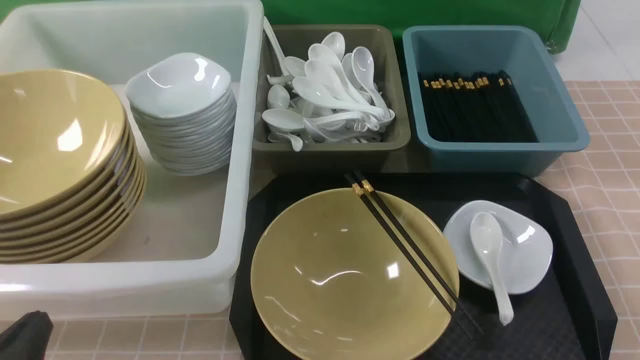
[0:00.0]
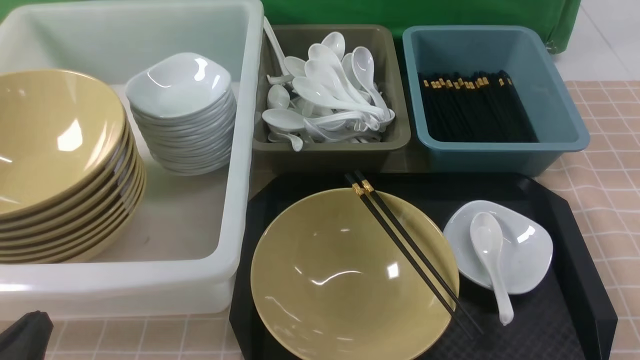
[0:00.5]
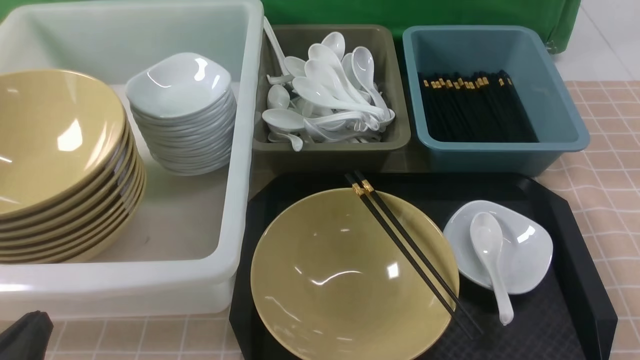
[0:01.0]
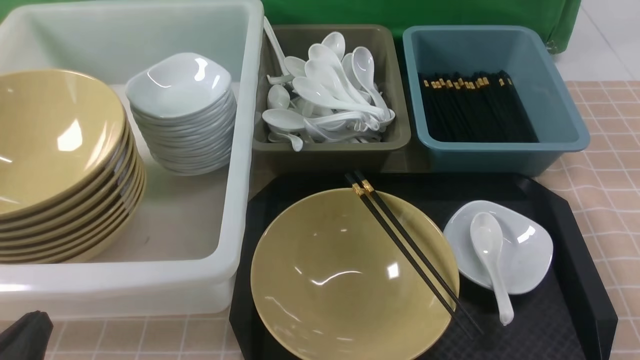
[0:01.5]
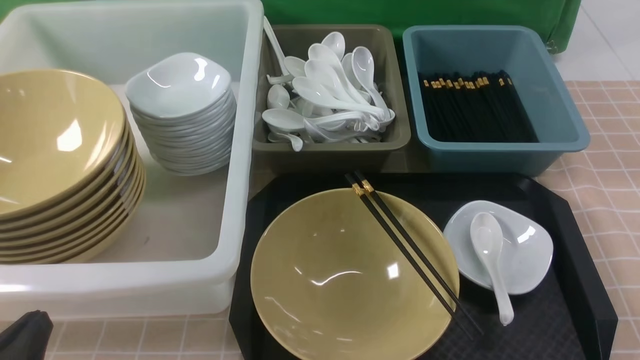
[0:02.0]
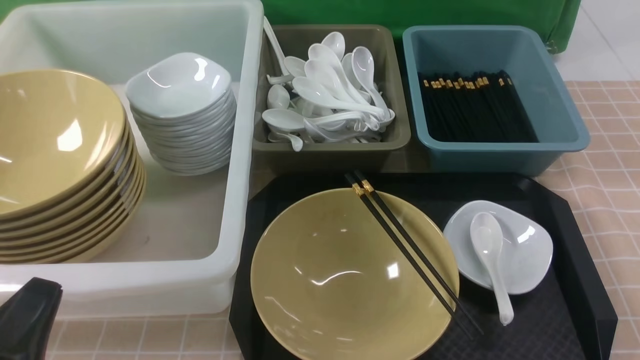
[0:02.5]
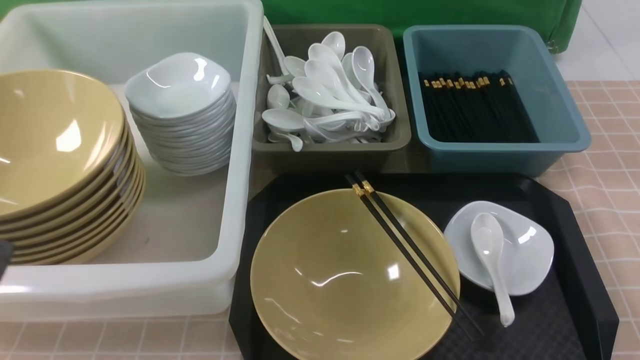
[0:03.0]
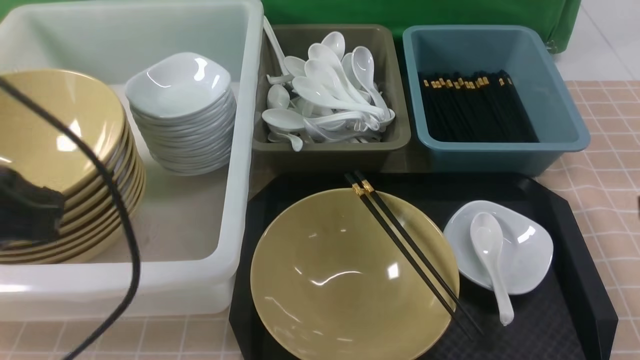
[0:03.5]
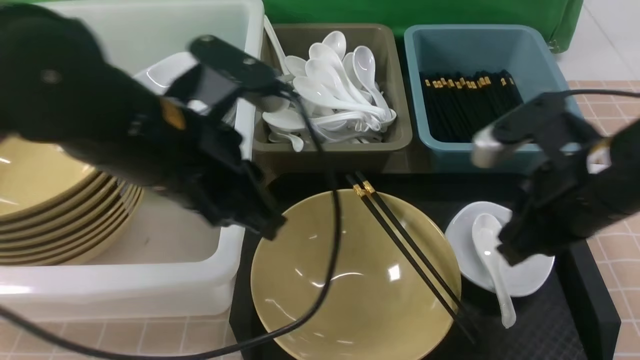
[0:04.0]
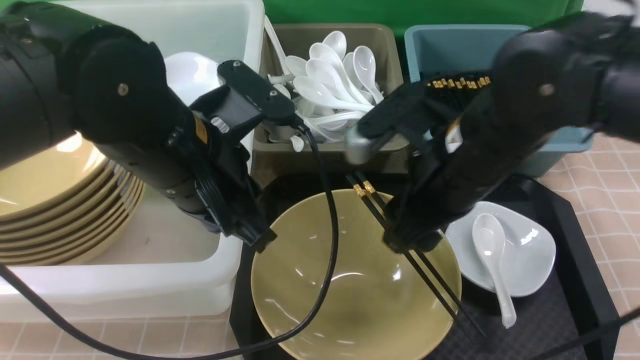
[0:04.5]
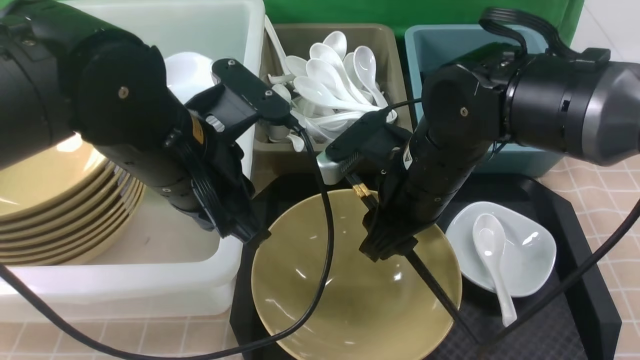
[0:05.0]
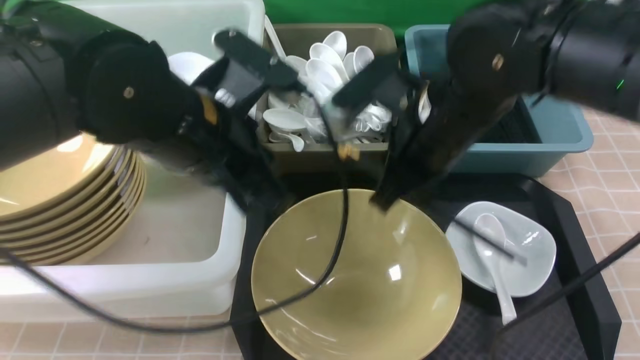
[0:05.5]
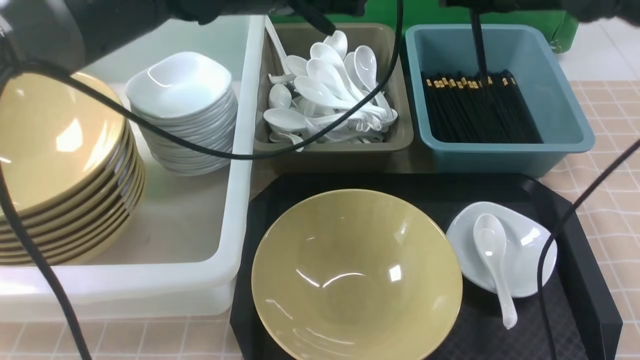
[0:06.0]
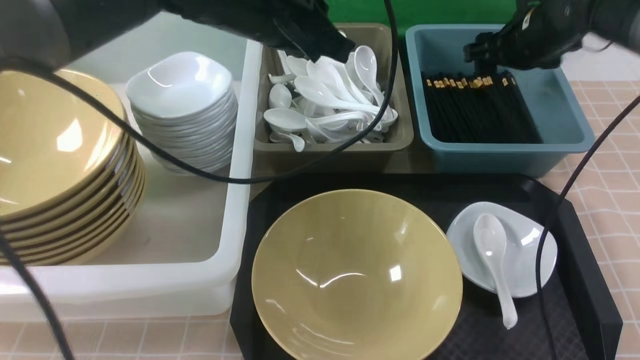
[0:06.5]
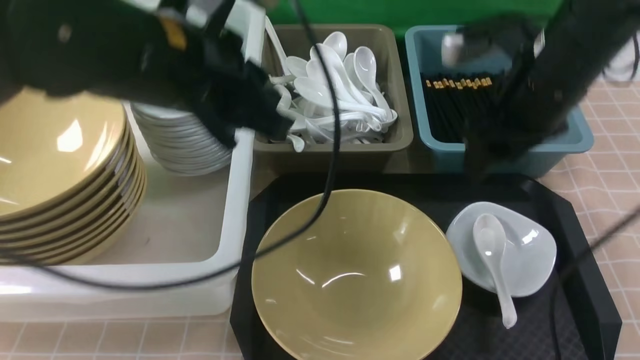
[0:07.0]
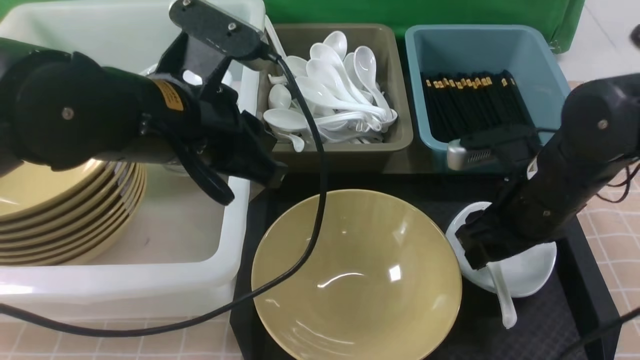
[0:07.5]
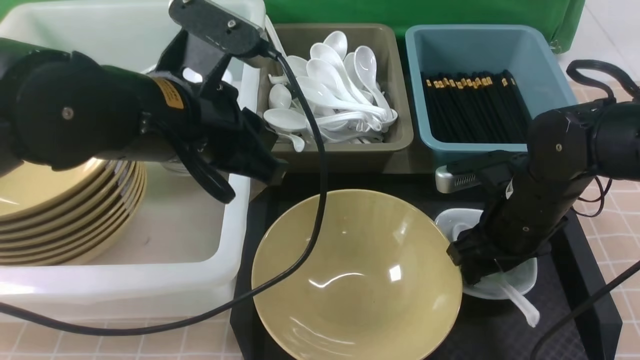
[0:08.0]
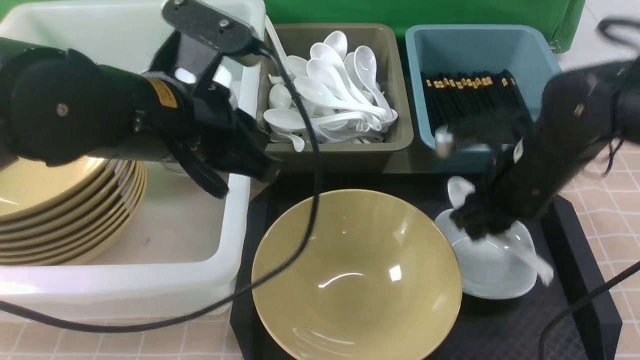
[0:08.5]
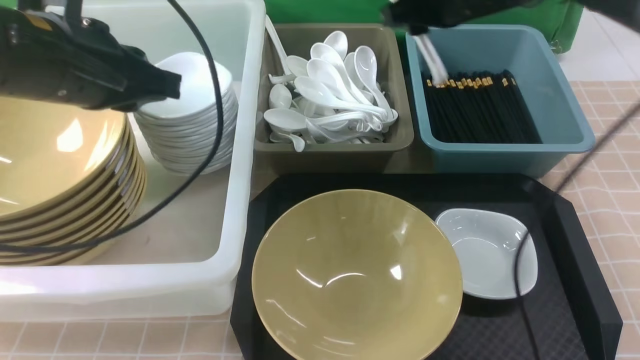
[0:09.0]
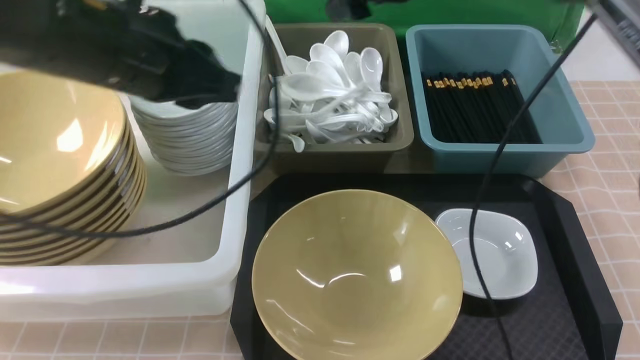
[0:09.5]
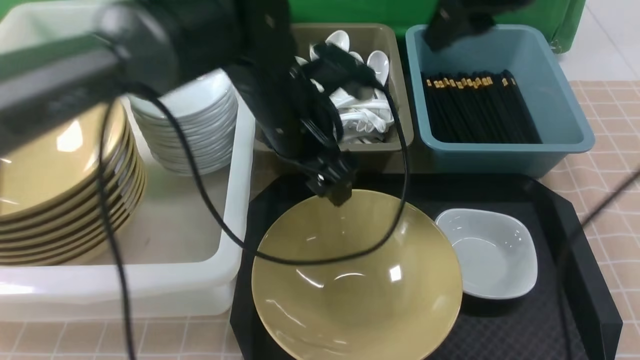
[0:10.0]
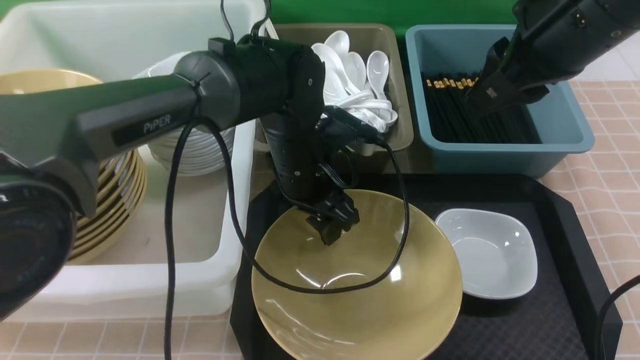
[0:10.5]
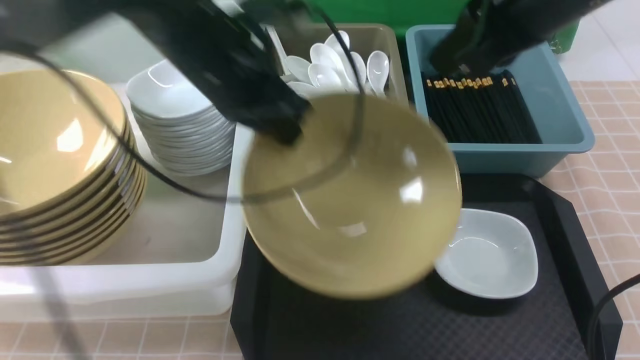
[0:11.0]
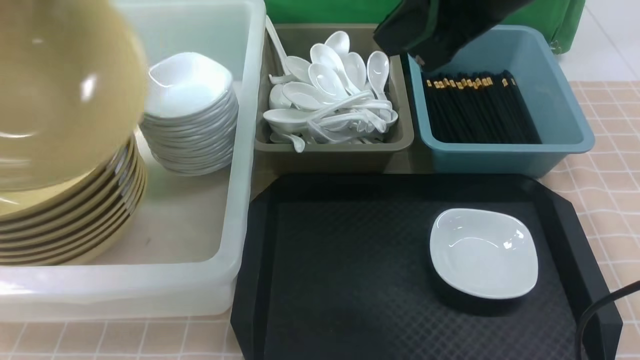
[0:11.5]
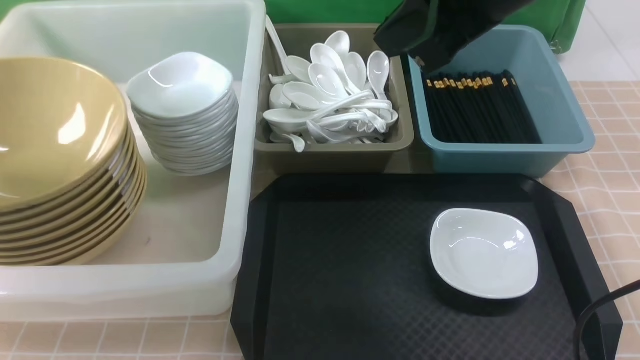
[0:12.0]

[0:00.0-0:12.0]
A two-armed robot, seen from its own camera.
Task of the whole recording: on brown table put chopsticks spoon bowls plates into blue grey white boxes.
Step, 0:00.0 to 0:05.0: use the right arm to grab the chopsticks.
Step, 0:05.5 to 0:06.5: use the right arm to put the chopsticks into the small storage box on the right.
Step, 0:07.0 to 0:08.0: use the right arm to grab the soup spoon in the middle.
Step, 0:08.5 to 0:09.0: use the right arm to put the soup spoon into the small storage box in the middle.
Step, 0:09.5 to 0:10.5: use the left arm to grab the yellow noodle bowl on the left.
0:02.0 to 0:04.0: The right gripper shifts approximately 25 cm forward, to the left and upward; the left gripper shifts approximately 25 cm forward, upward and to the right.
0:04.0 to 0:06.0: The left gripper is displaced forward and to the right by some 15 cm, while the right gripper goes roughly 20 cm forward, and opens, then closes again.
0:06.0 to 0:08.0: The left gripper is displaced backward and to the left by some 10 cm; the right gripper is displaced backward and downward by about 20 cm, and opens up.
0:08.0 to 0:10.0: The left gripper shifts some 15 cm forward, to the right and downward, and opens. The right gripper moves upward, some 25 cm.
0:10.0 to 0:12.0: The right gripper is displaced backward by roughly 5 cm, and closes its fingers. The left gripper goes about 35 cm to the left, and closes its fingers.

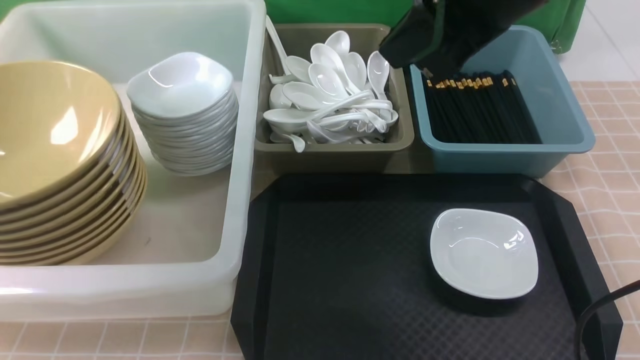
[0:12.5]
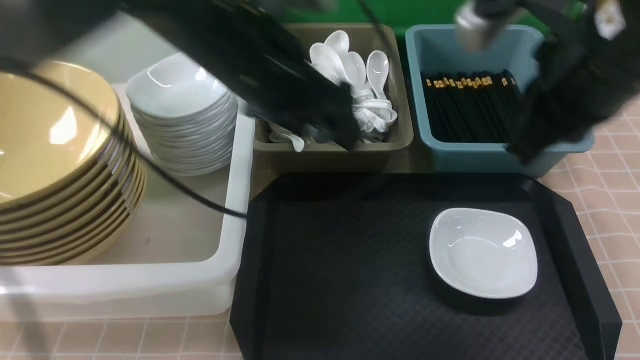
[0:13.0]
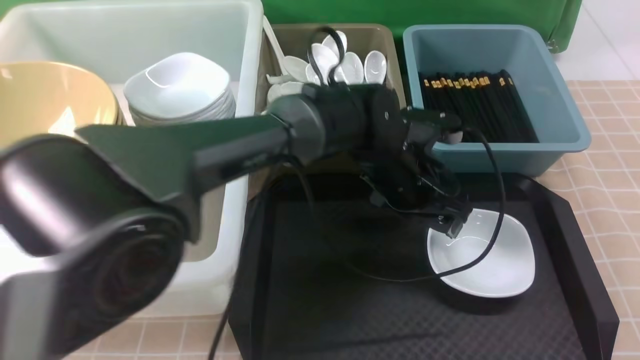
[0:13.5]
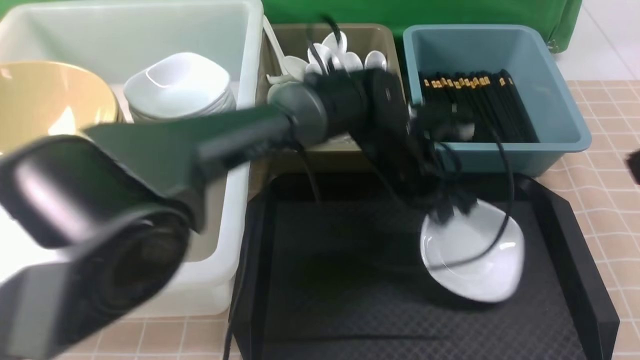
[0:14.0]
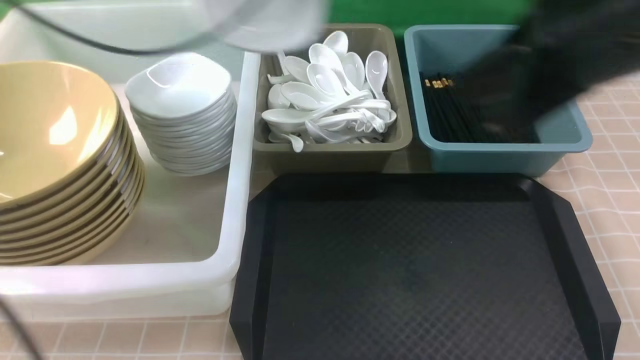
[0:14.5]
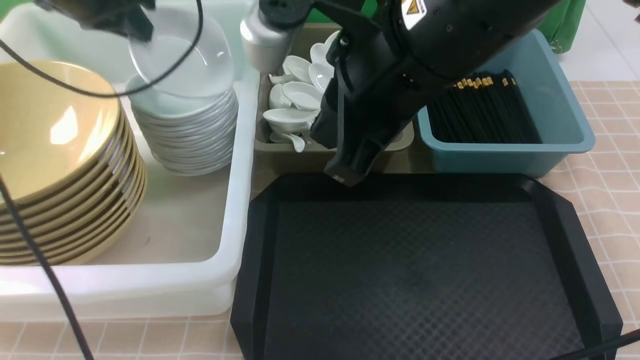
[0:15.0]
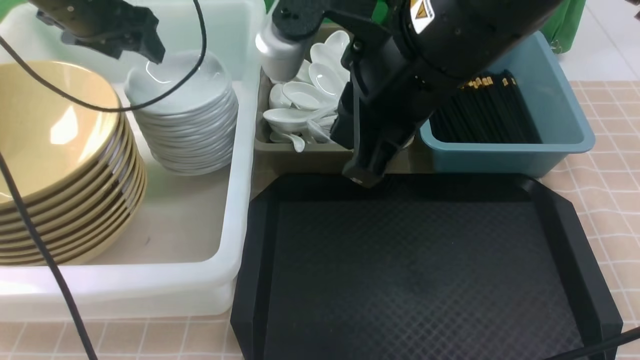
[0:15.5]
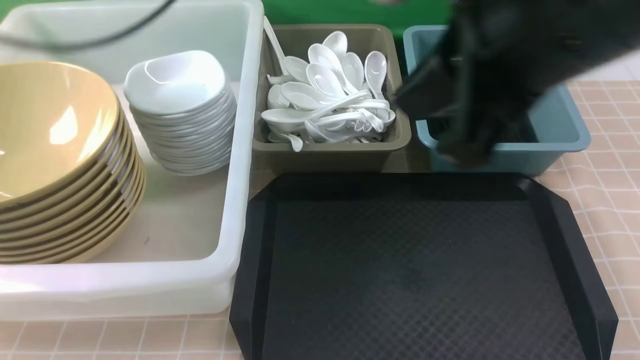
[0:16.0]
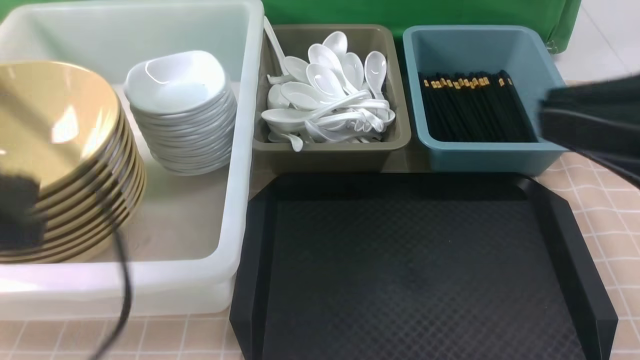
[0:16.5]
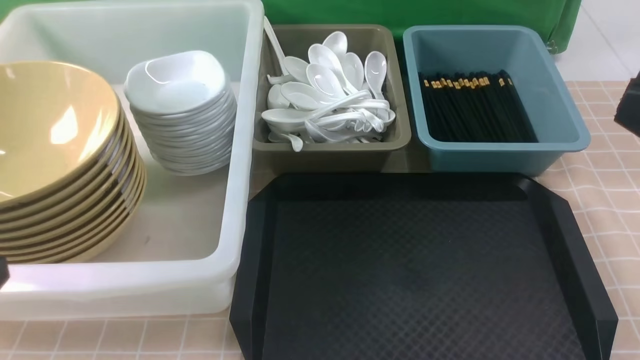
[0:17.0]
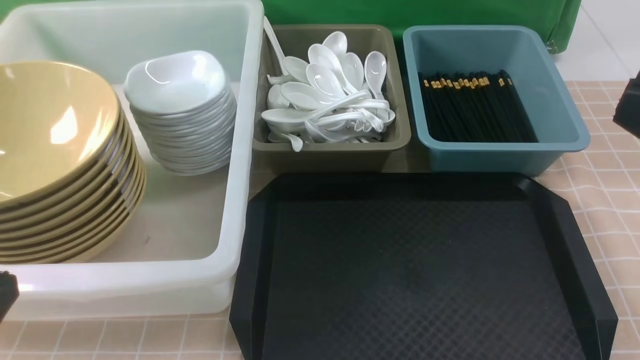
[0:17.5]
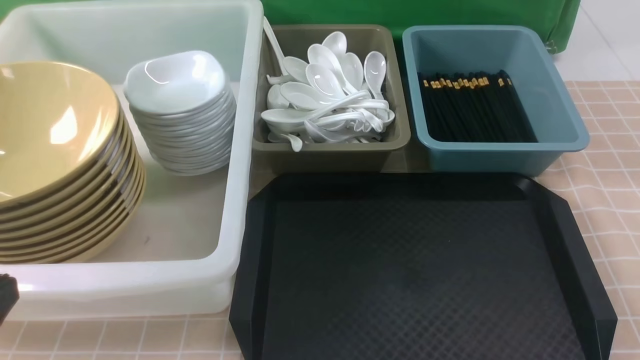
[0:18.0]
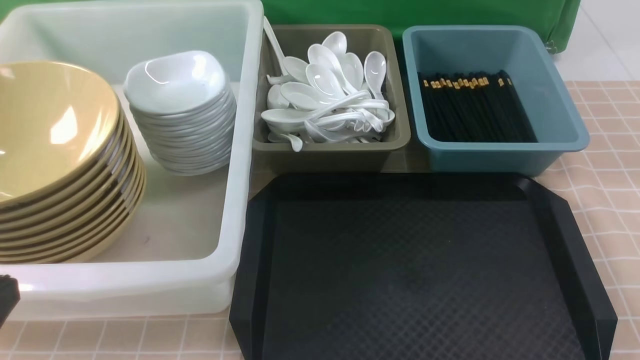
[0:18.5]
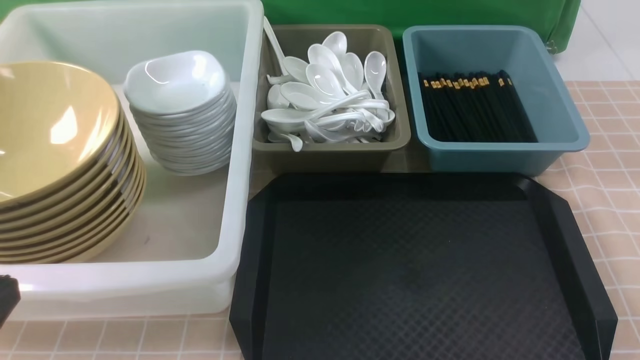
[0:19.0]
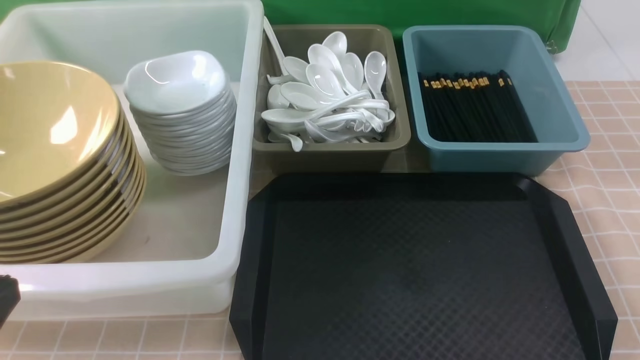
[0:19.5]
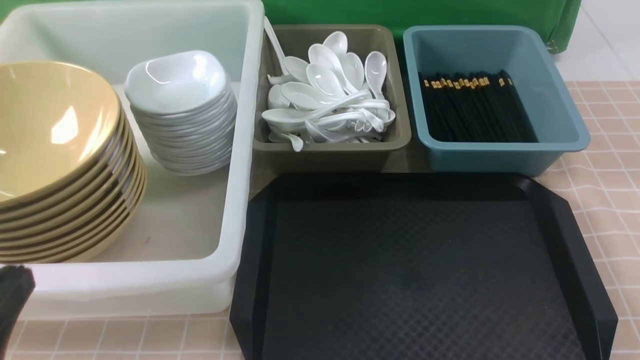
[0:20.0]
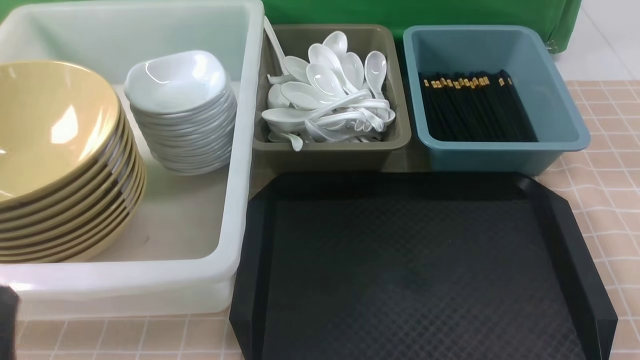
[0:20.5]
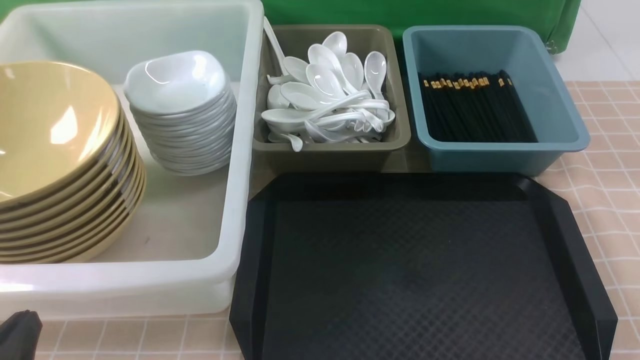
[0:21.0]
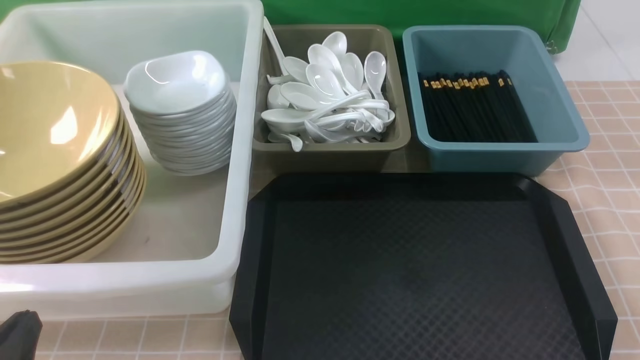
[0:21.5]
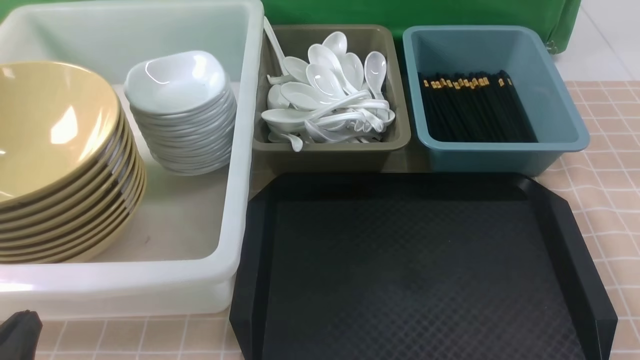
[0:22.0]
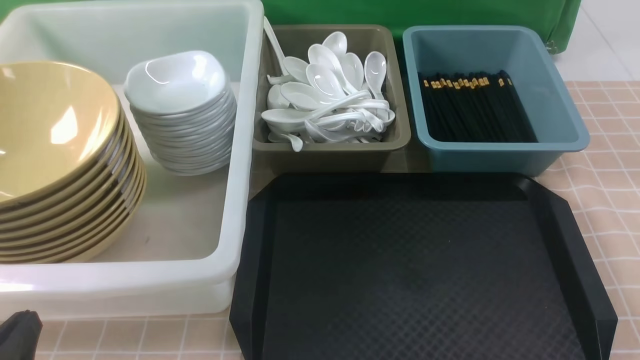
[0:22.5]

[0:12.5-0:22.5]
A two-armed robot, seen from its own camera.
Task of the whole recording: on brown table put chopsticks spoon bowls plates into blue grey white boxes.
Step, 0:12.5 to 0:13.5: use the left arm to grab the plate.
Step, 0:14.0 to 0:15.5: use the left arm to put the plate into the large storage box on the left.
0:12.5 to 0:14.5: The right gripper is displaced backward by some 5 cm; the left gripper travels to the right and forward by some 20 cm, and closes up.
0:14.5 to 0:16.5: The right gripper shifts about 15 cm backward and to the right. Meanwhile the left gripper shifts about 25 cm backward, and opens, then closes once more.
0:16.5 to 0:18.5: The left gripper shifts some 10 cm downward and backward; the right gripper moves downward and to the right, some 25 cm.
